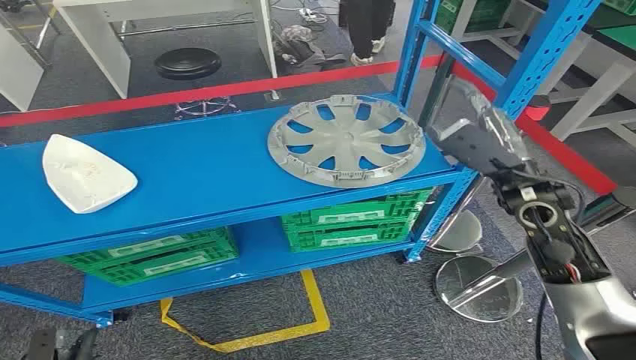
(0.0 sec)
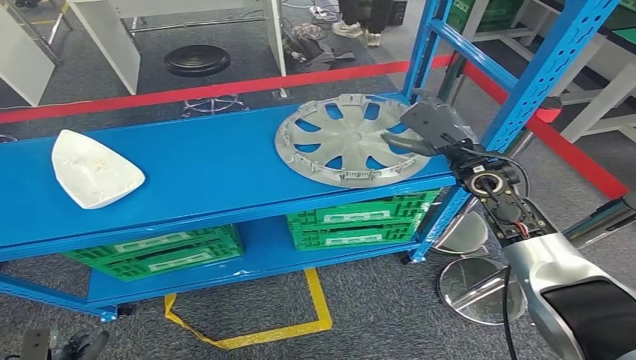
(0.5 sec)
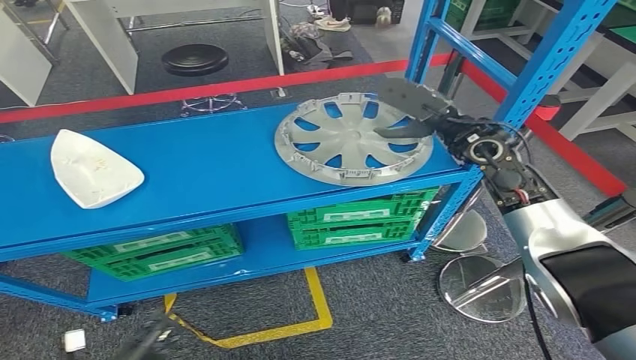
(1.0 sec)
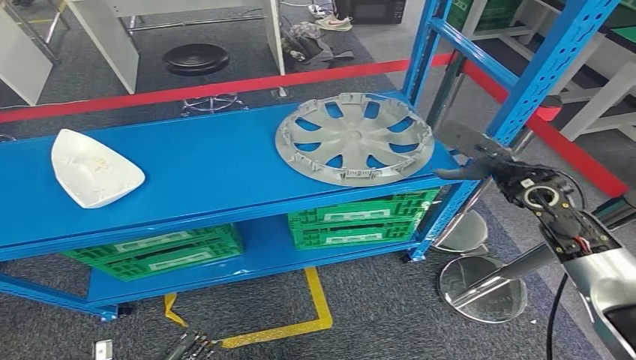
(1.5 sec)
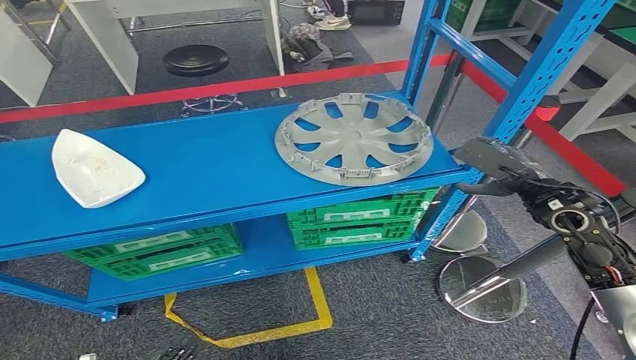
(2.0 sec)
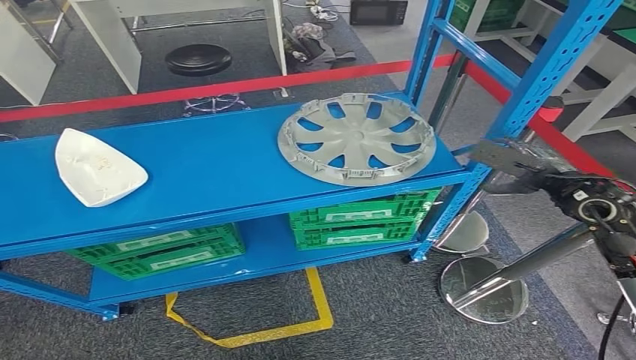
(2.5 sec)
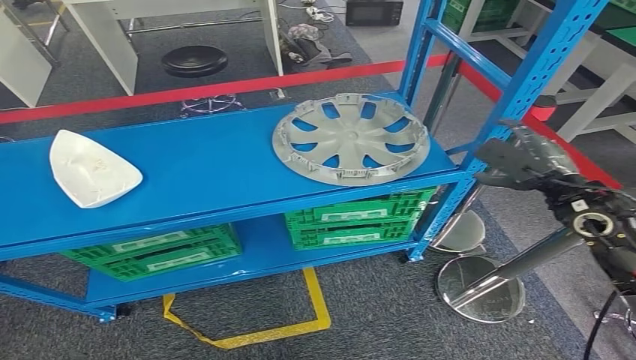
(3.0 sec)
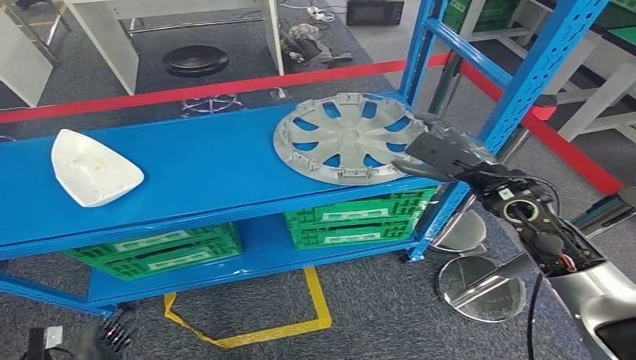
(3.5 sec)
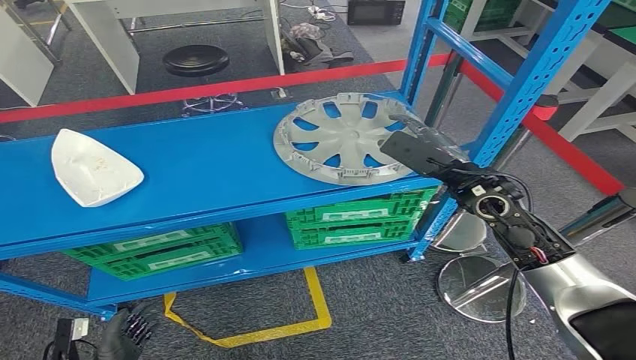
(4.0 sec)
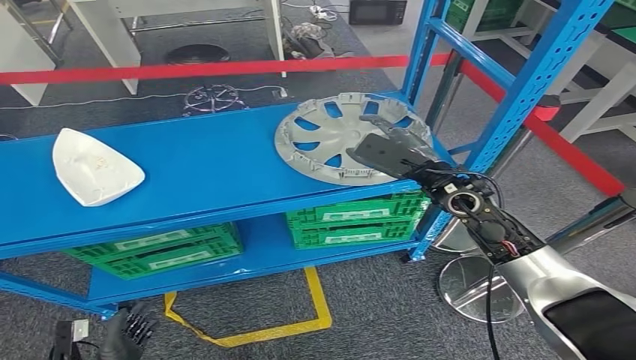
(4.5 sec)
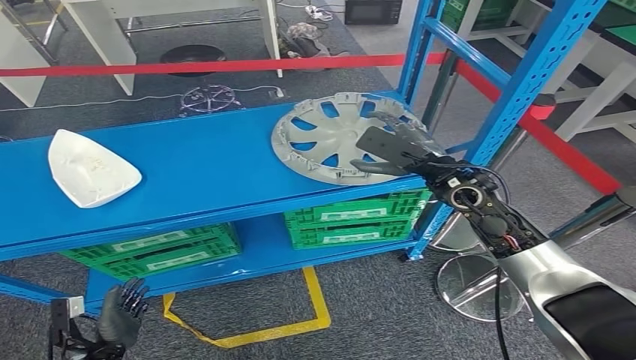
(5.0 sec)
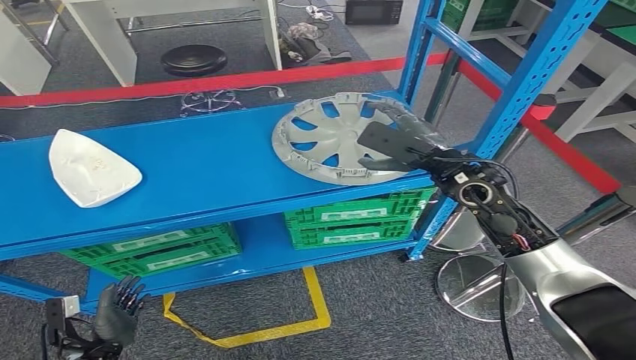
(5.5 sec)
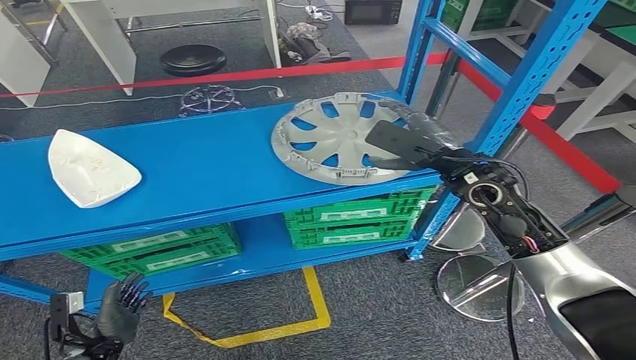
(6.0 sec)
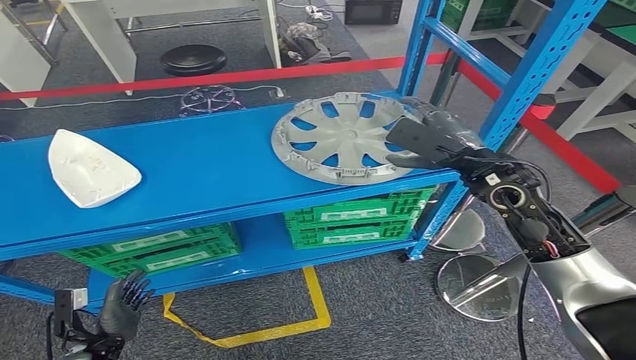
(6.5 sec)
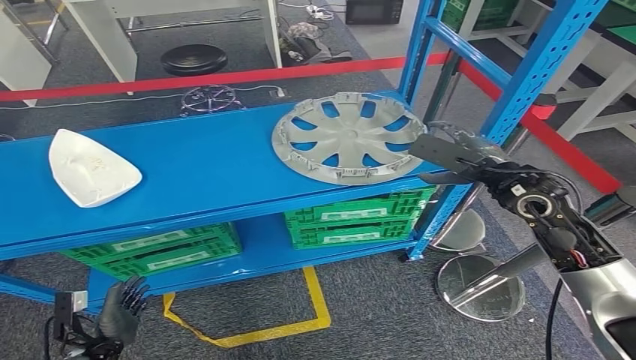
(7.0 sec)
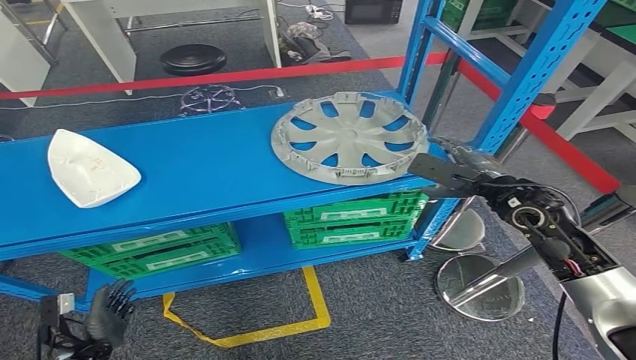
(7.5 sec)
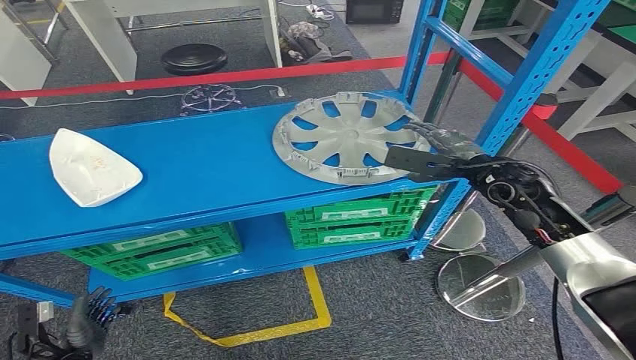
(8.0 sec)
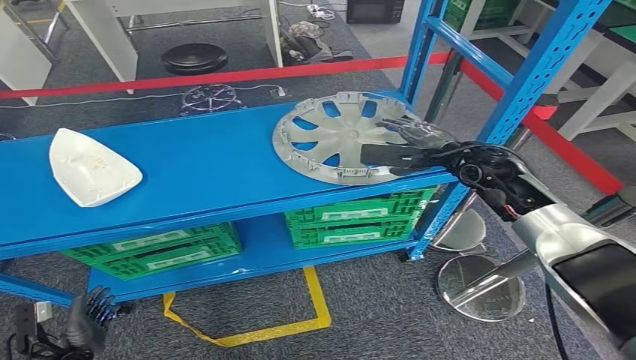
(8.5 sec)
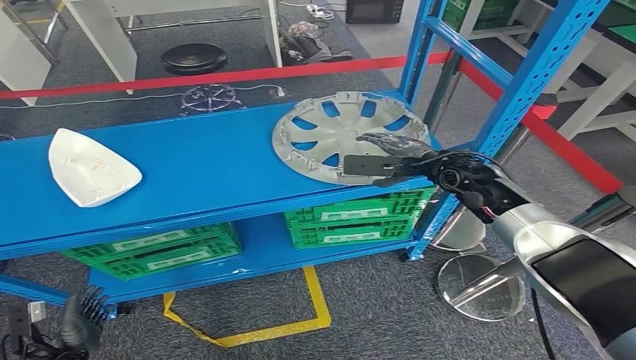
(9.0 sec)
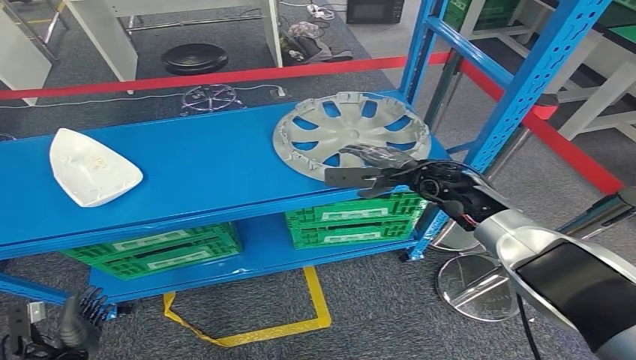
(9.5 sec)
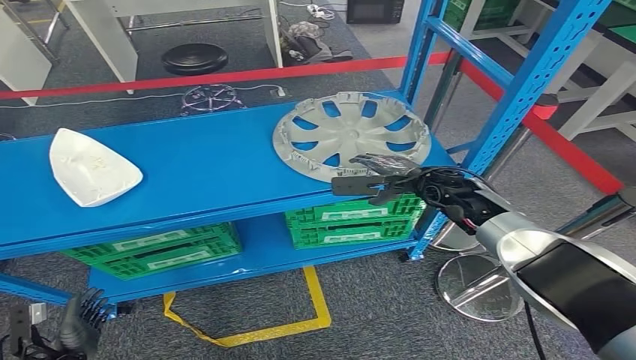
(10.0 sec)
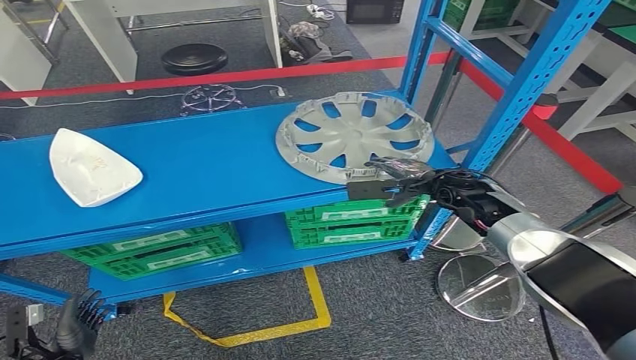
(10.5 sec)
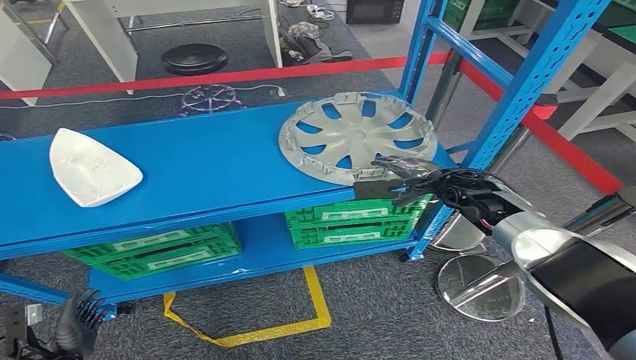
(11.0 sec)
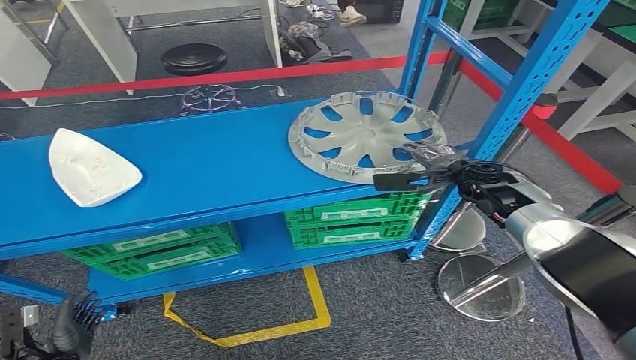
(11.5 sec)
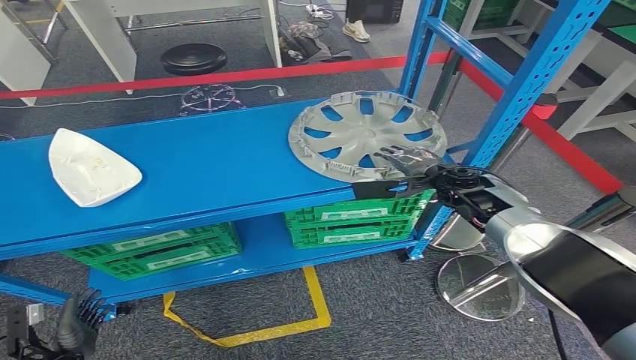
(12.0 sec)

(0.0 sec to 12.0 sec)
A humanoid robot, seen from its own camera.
2.0 sec - 4.0 sec: The right hand is displaced to the left by approximately 10 cm. The left hand moves forward, approximately 5 cm.
4.0 sec - 6.0 sec: The left hand is displaced forward by roughly 5 cm.
6.0 sec - 8.0 sec: The right hand moves to the right, roughly 5 cm. Meanwhile the left hand moves roughly 5 cm.
8.0 sec - 10.0 sec: The right hand heads to the left, covering about 5 cm.

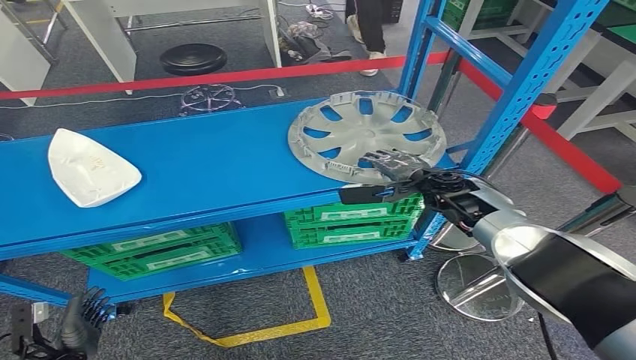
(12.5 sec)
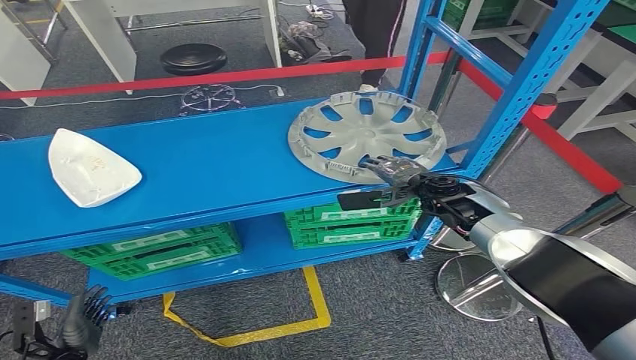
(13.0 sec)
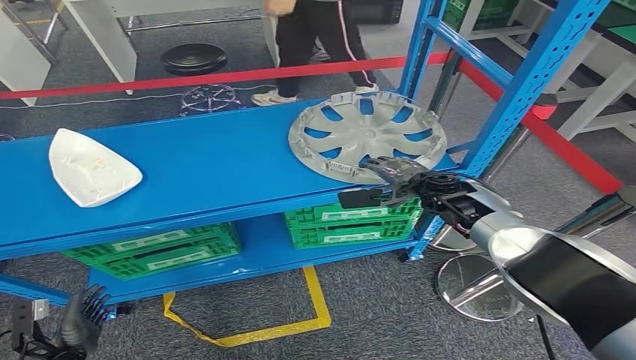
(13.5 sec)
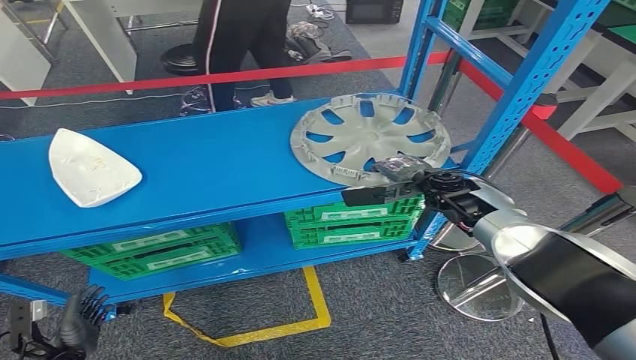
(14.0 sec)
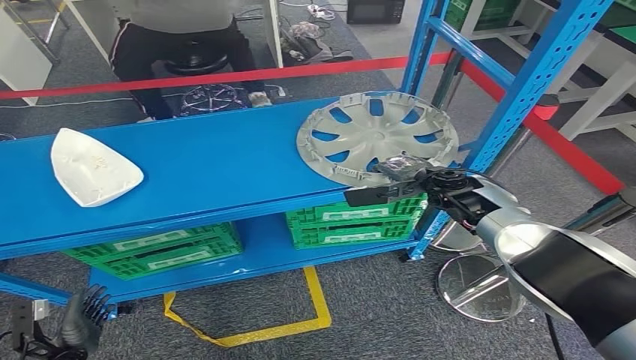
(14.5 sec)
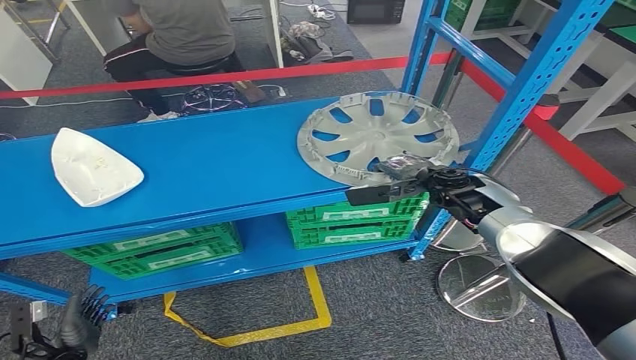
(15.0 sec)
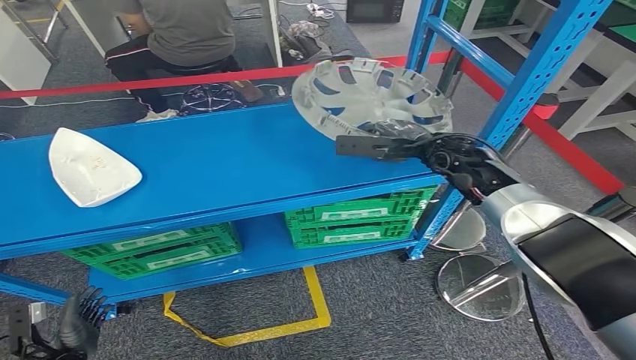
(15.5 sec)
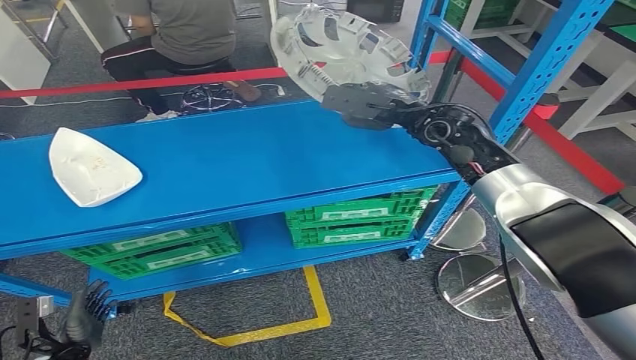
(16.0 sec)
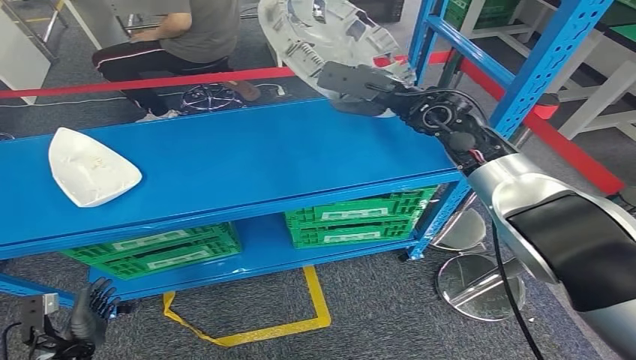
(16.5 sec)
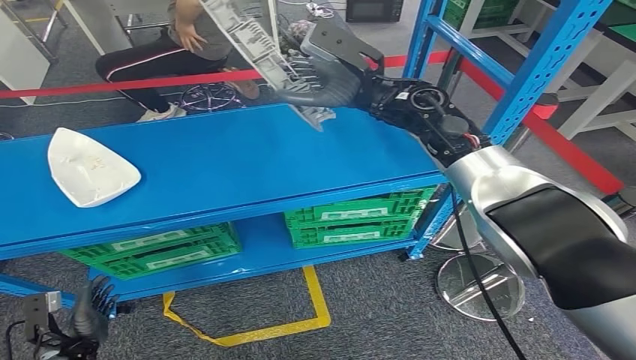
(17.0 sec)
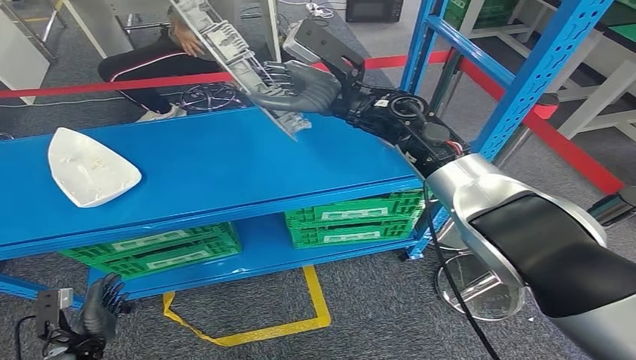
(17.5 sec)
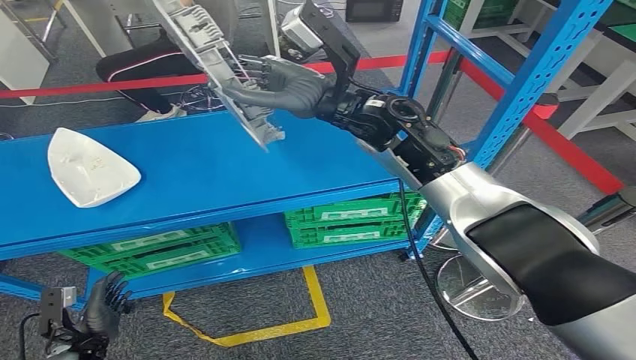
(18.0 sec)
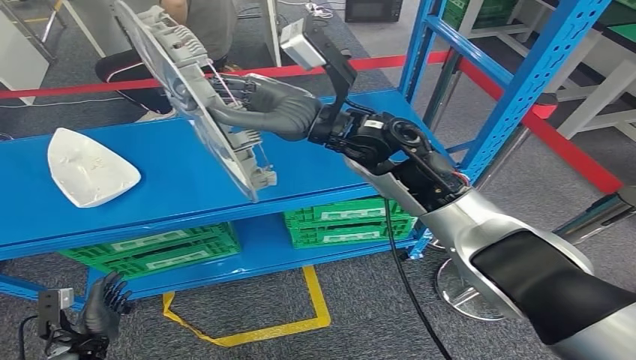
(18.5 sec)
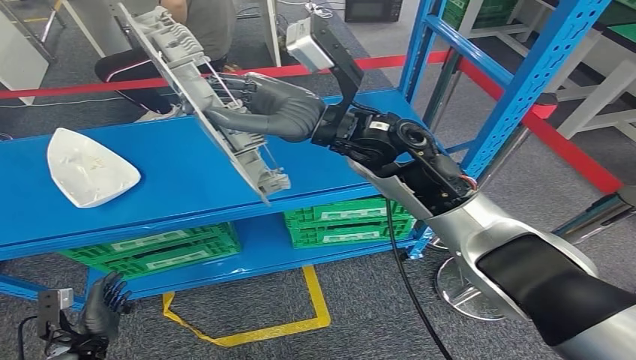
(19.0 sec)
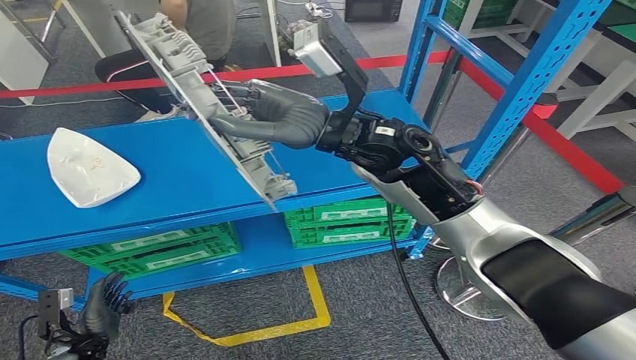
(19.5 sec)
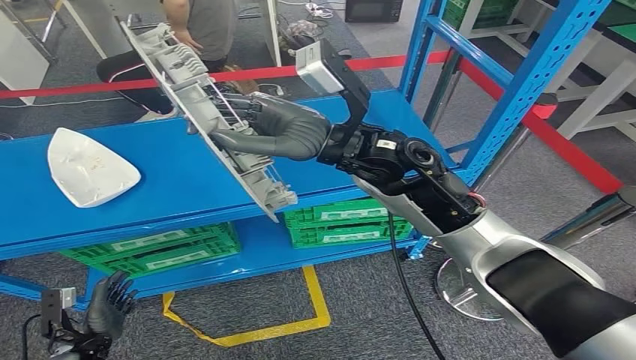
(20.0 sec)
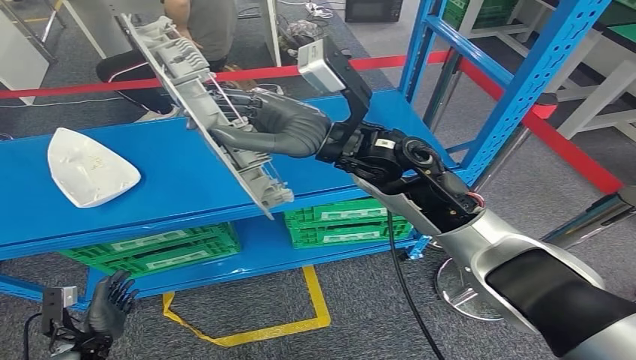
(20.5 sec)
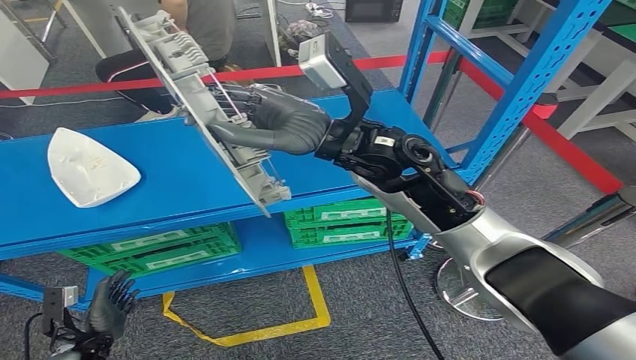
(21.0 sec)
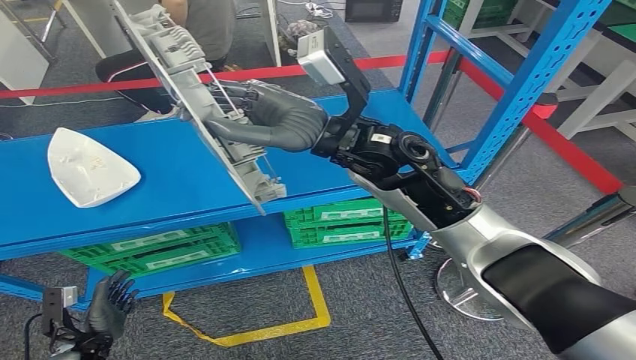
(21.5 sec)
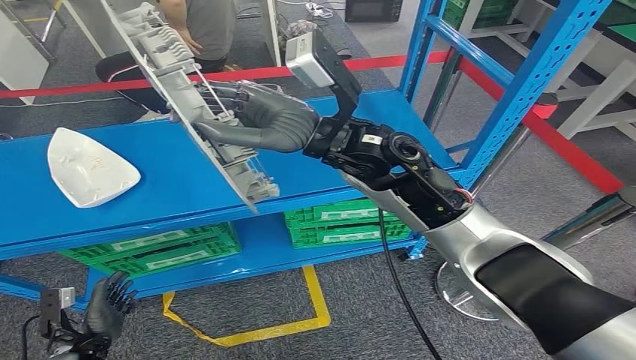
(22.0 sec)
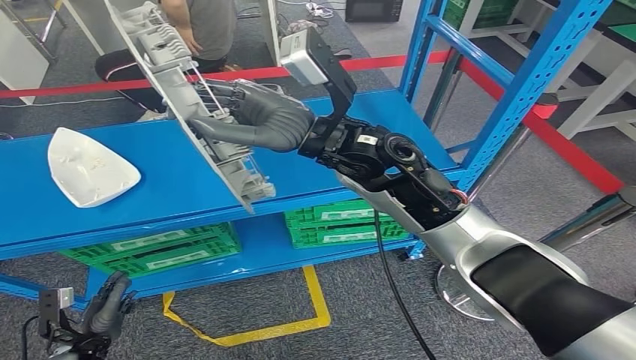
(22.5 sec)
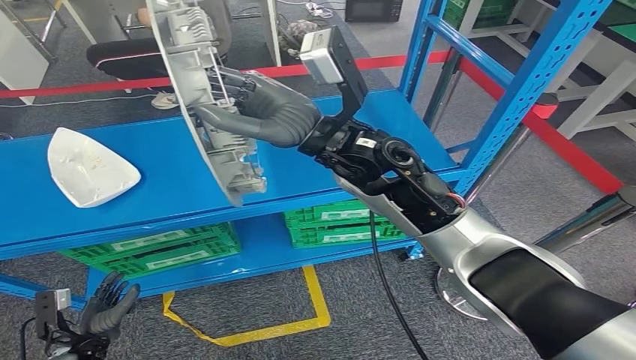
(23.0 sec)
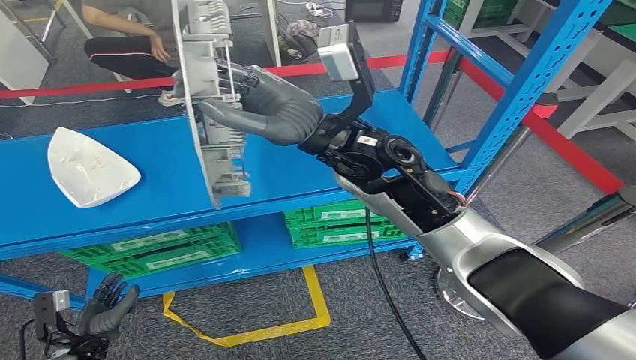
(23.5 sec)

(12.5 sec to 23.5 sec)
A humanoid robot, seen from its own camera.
Step, 12.5 sec - 17.0 sec: Pick up the small component from the shelf.
12.5 sec - 14.5 sec: There are only small adjustments of the hands.
20.0 sec - 21.5 sec: Both hands stay put.
21.5 sec - 23.5 sec: There are only small adjustments of the hands.
